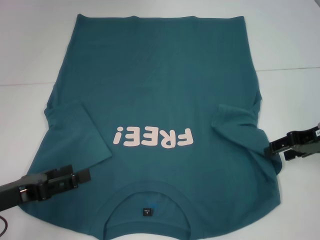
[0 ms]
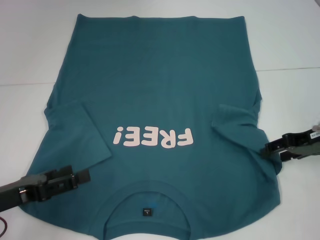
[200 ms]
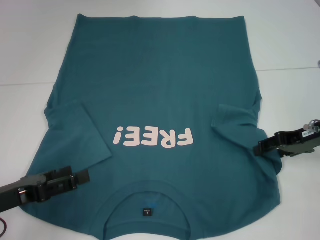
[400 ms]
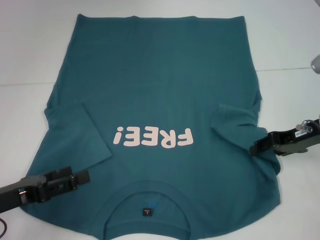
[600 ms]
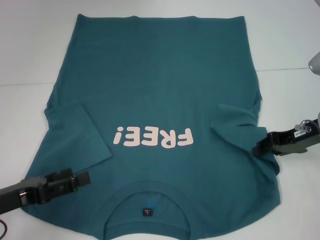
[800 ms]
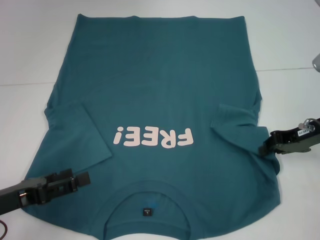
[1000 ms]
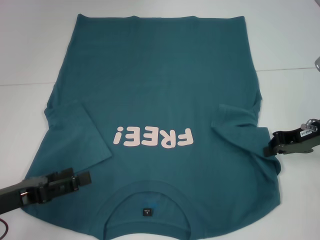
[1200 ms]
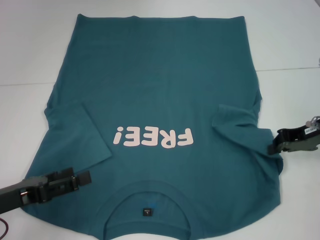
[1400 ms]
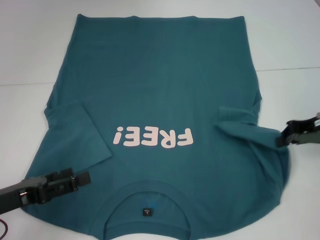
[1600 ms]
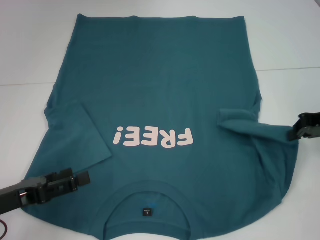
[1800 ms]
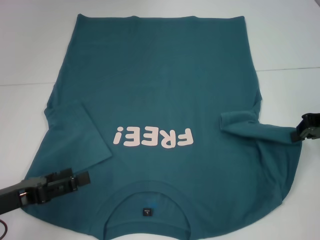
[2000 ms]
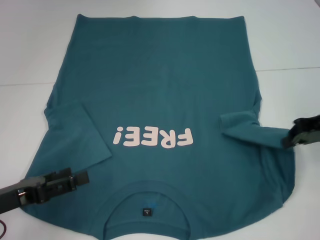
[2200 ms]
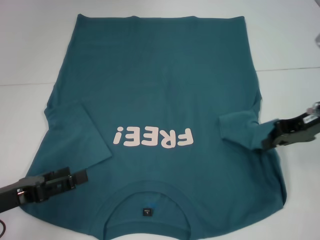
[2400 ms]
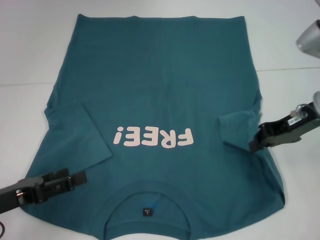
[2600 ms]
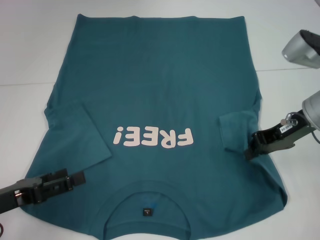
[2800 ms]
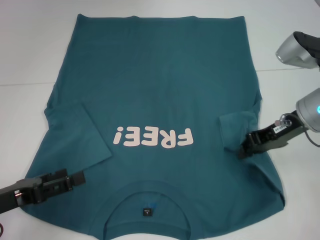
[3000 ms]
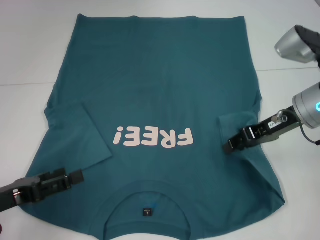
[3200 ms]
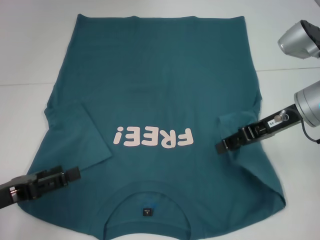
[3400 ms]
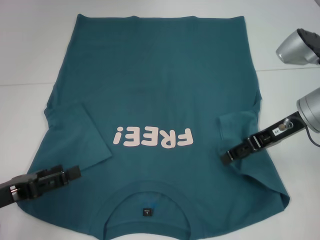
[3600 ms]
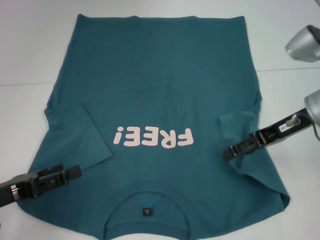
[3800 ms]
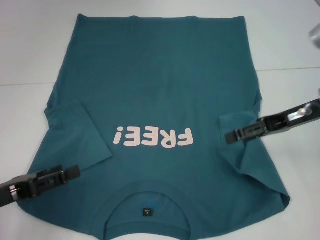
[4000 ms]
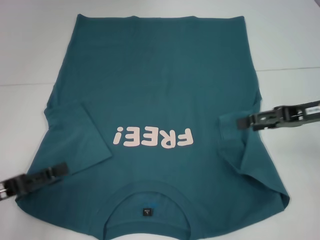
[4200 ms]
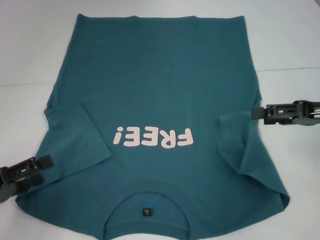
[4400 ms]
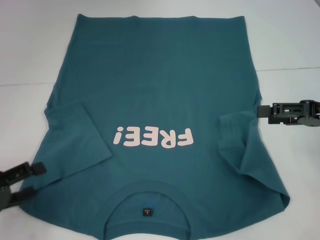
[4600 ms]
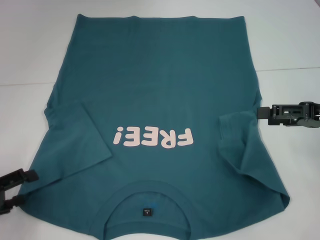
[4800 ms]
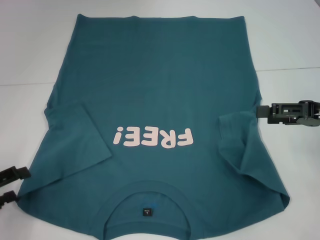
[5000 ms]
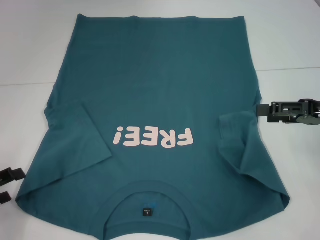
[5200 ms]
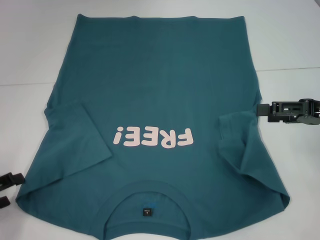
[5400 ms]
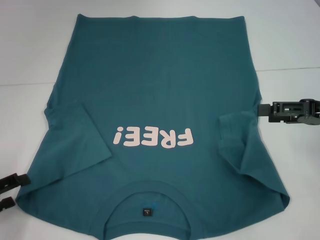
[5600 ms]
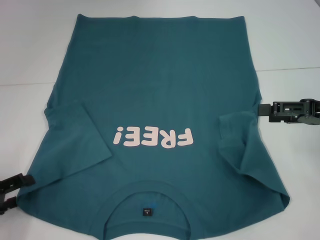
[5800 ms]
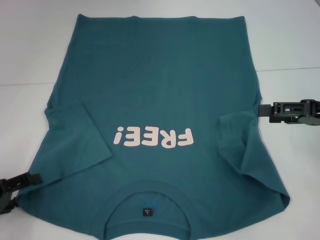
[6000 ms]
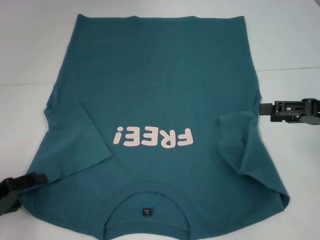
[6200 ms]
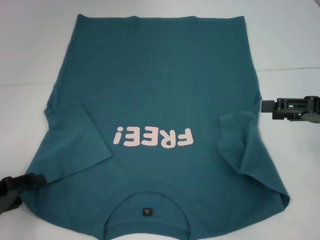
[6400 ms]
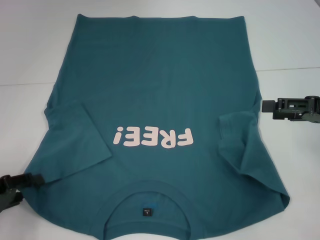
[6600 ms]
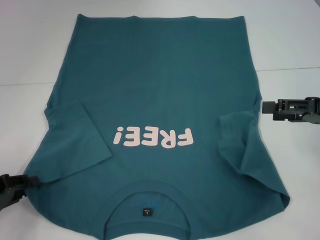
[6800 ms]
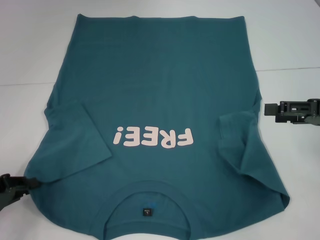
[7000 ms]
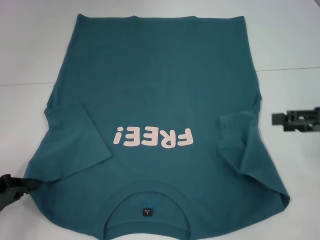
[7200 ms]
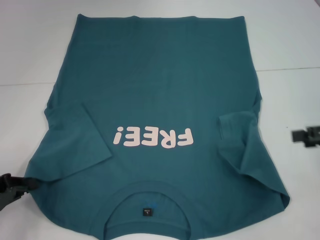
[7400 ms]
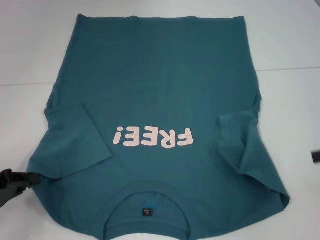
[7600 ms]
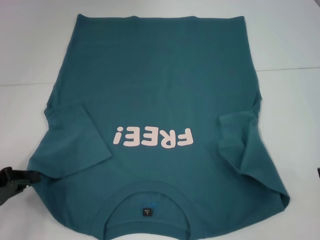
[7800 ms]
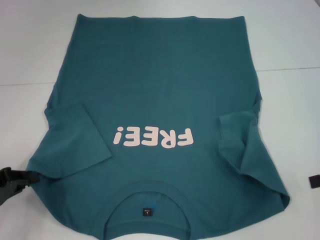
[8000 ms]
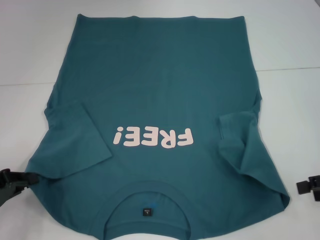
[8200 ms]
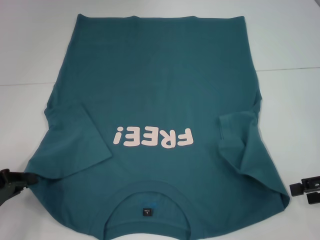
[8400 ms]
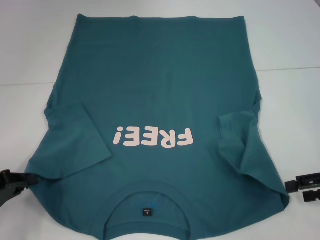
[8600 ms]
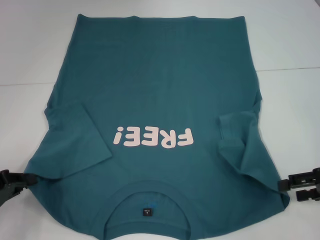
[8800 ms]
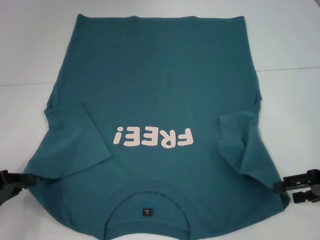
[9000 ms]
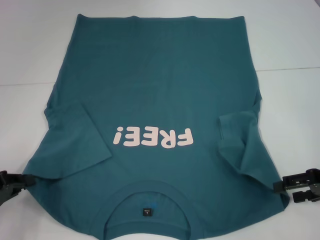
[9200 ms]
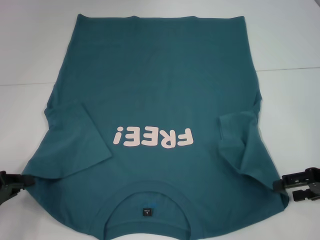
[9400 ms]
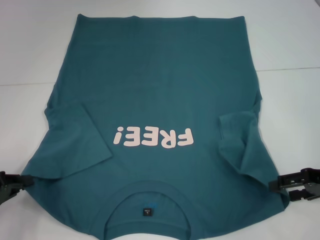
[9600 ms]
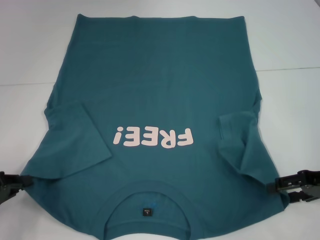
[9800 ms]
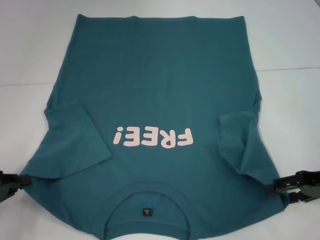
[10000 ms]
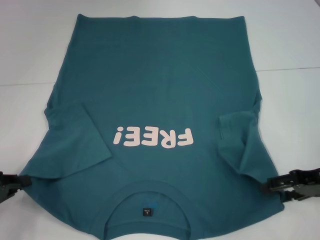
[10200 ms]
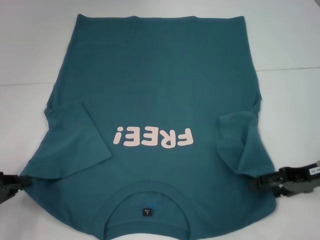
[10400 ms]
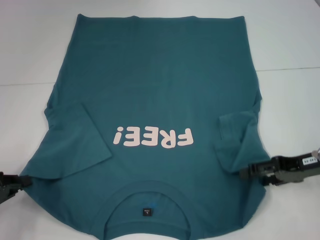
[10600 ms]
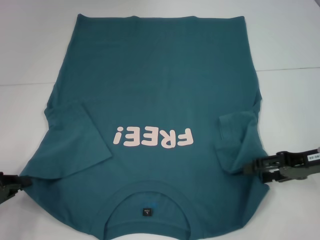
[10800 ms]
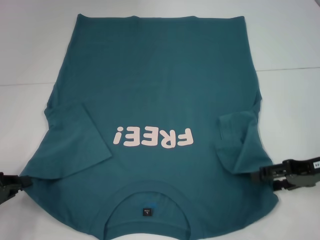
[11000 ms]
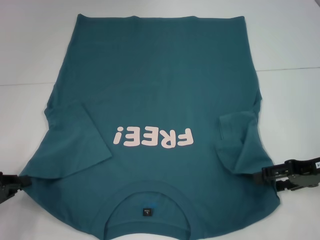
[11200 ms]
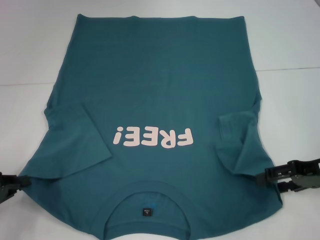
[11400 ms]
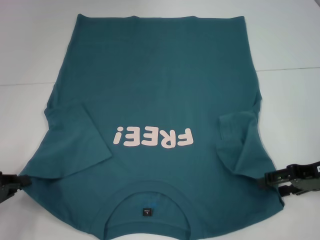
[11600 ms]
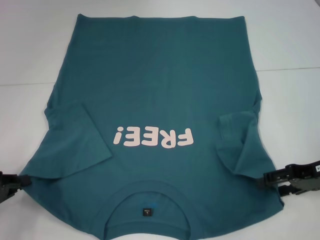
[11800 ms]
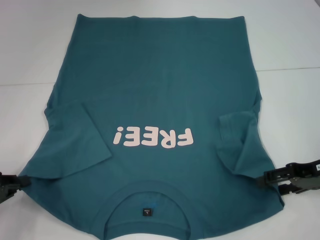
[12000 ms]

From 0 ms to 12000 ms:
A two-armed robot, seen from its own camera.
Step, from 0 ms to 3800 ms: Fold the bottom right sleeve to the right.
Step, from 4000 ms to 8800 ms: Grab the bottom left corner with your left hand.
From 0 ms to 1600 ms: The right gripper closes.
From 1600 ms to 3000 ms: The right gripper shifts roughly 5 cm to the left.
From 3000 ms to 4400 ms: The right gripper is displaced to the right by approximately 10 cm, and opens up.
From 6000 ms to 7600 ms: The right gripper shifts about 5 cm to the right, while the left gripper closes its fingers.
From 7600 ms to 9000 ms: The right gripper shifts some 5 cm downward.
From 9000 ms to 12000 ms: The grippers move only a little.

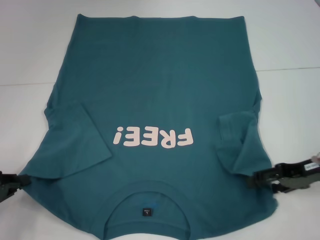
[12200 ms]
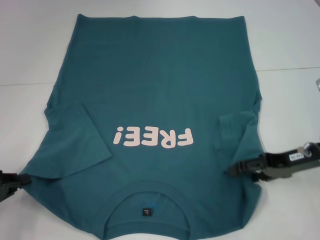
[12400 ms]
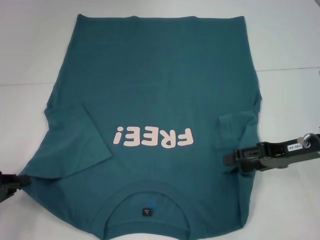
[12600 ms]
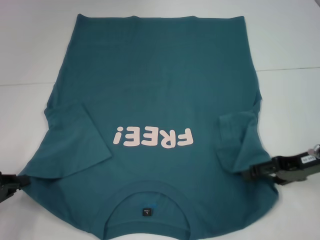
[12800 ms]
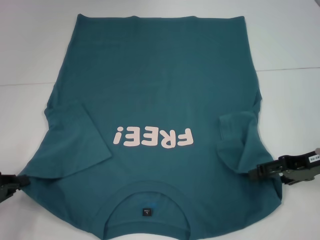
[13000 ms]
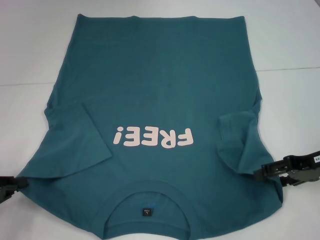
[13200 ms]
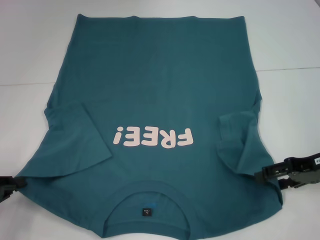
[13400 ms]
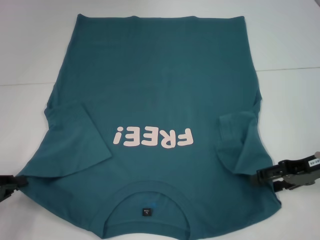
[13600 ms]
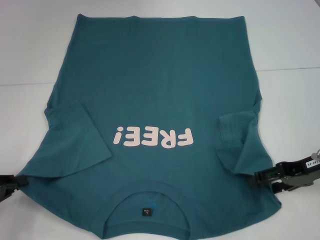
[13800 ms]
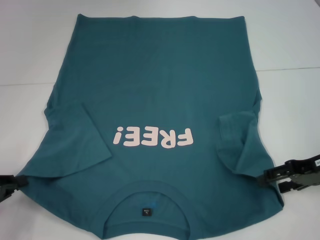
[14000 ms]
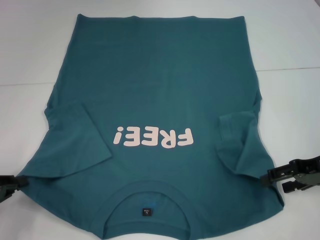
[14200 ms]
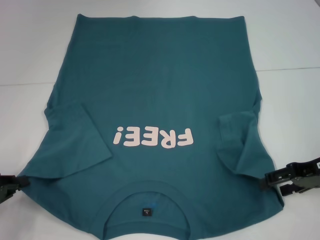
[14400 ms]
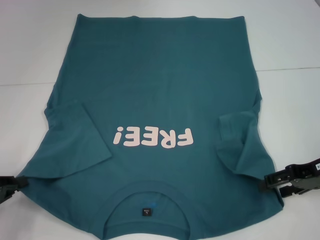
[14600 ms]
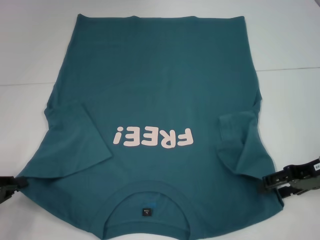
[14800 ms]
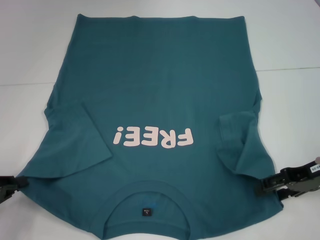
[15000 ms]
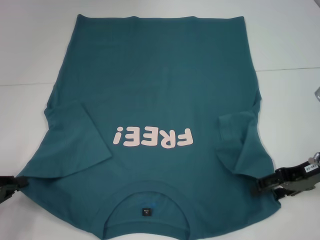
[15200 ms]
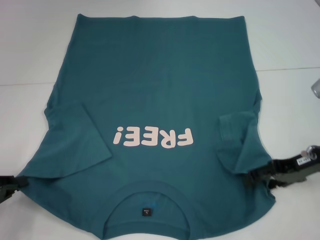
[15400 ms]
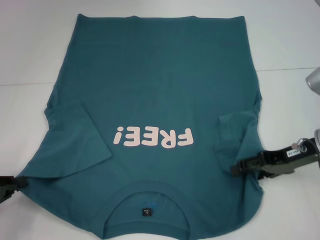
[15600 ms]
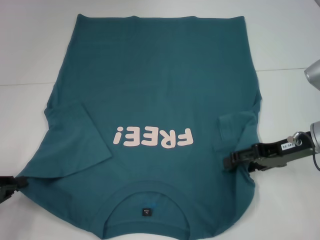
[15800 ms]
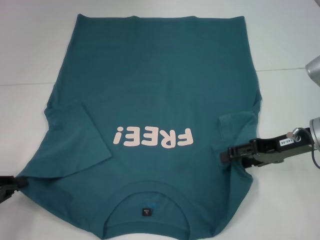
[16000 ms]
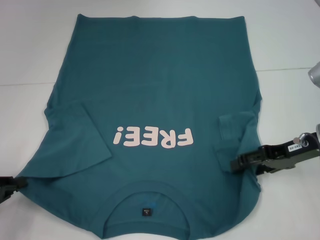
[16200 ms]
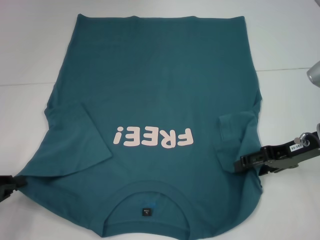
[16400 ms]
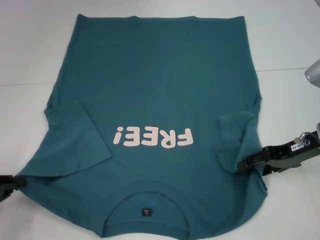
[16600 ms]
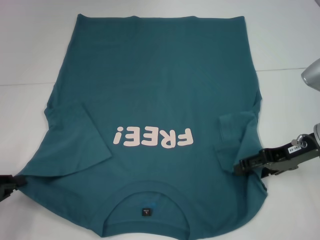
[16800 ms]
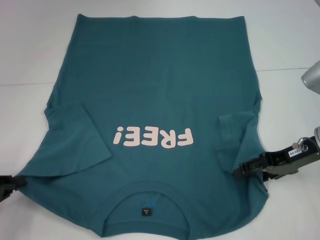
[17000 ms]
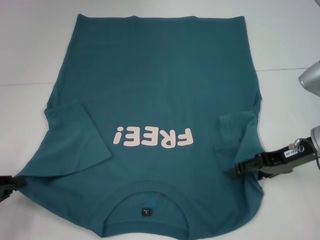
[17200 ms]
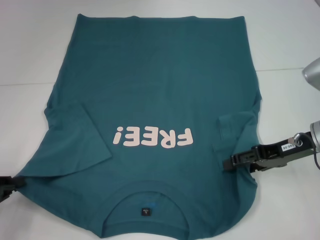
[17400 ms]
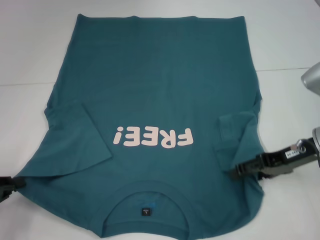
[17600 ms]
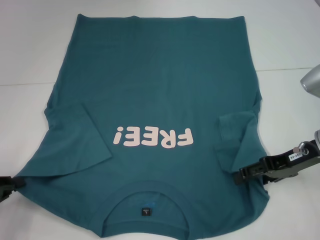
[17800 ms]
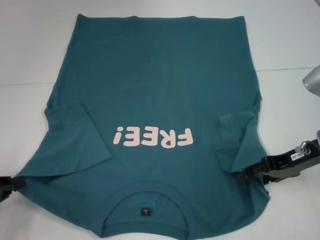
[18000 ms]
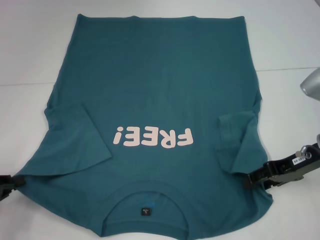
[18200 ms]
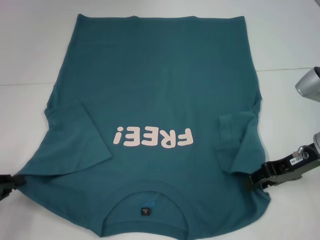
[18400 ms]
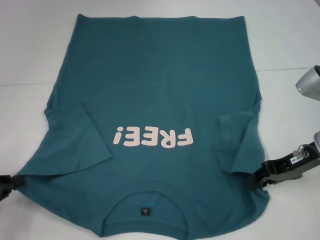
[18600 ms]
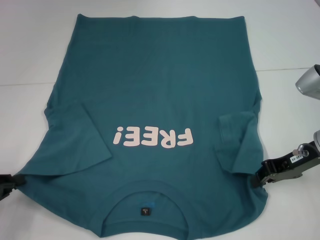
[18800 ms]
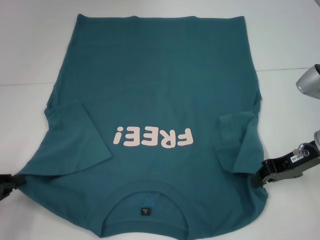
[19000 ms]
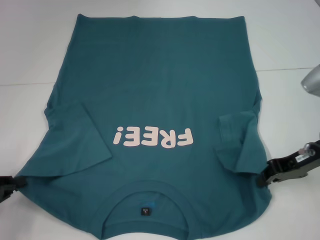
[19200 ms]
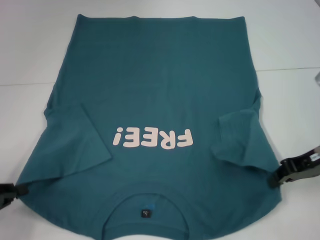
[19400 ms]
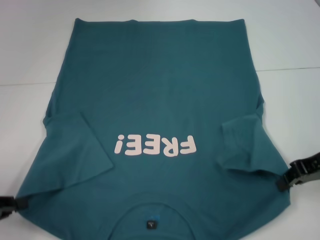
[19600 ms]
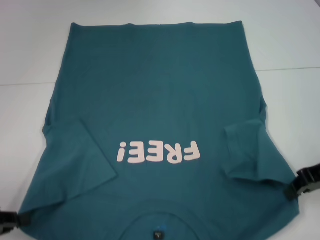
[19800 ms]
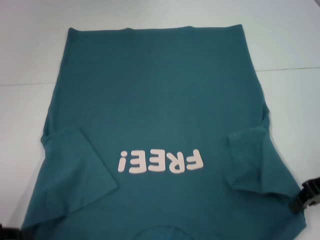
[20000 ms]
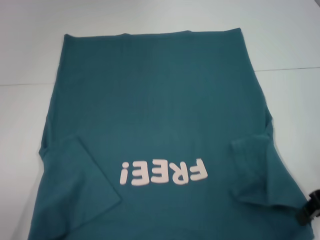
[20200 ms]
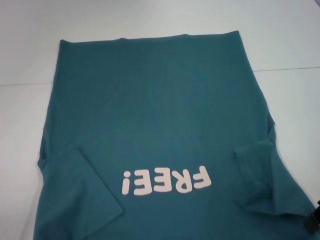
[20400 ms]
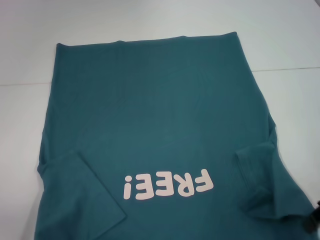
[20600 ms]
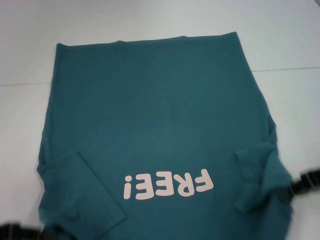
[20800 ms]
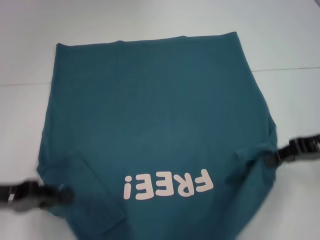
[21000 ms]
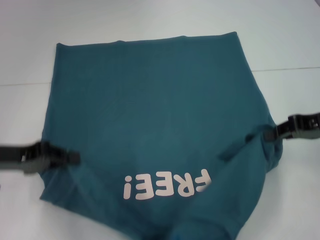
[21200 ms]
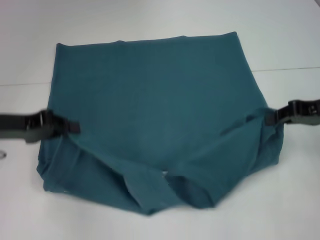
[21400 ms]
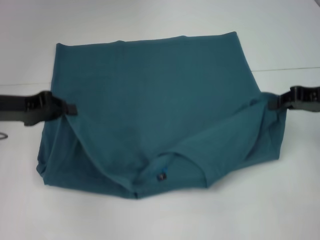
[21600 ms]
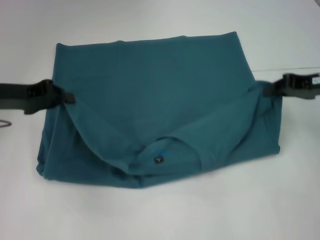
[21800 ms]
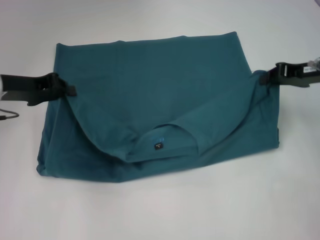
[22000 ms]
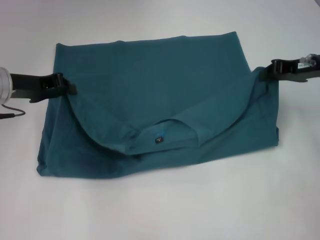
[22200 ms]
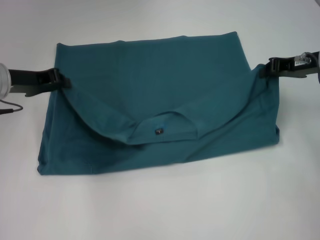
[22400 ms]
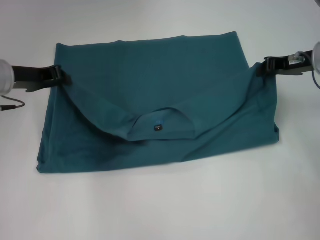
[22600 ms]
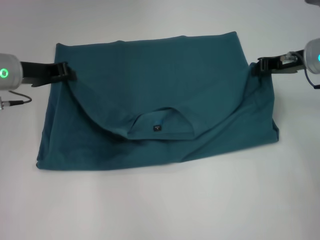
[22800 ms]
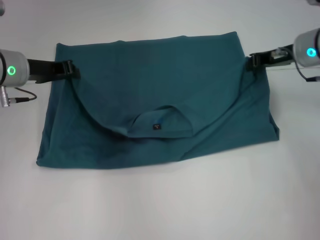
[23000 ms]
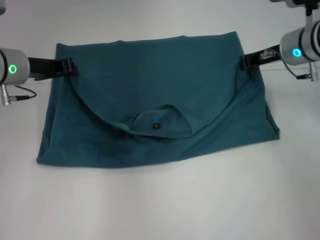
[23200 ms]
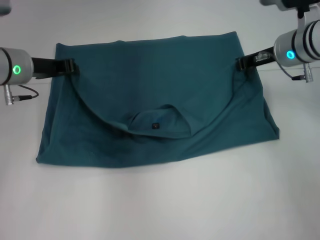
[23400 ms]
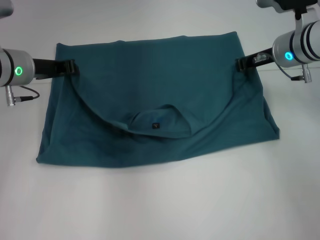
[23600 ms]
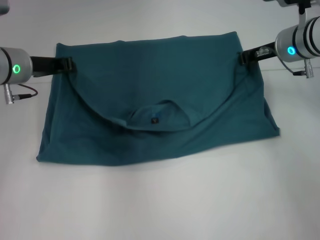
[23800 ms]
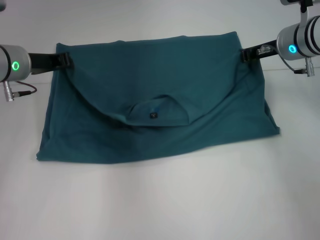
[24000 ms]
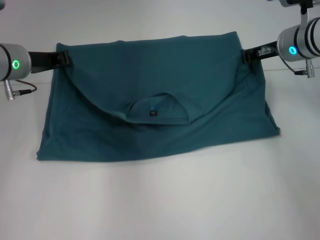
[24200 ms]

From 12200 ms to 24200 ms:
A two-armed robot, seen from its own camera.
Step, from 12200 ms to 19000 ms: Grab the bottom right corner with your right hand.
From 12200 ms to 18200 ms: The grippers stay close to where they were, moving slightly.
From 18200 ms to 19800 ms: The right gripper closes.
From 19800 ms to 21200 ms: The left gripper goes approximately 10 cm forward, to the right and upward.
From 21200 ms to 22600 ms: Both grippers move forward, some 10 cm.
From 22600 ms to 24200 ms: The right gripper goes approximately 5 cm to the left.
